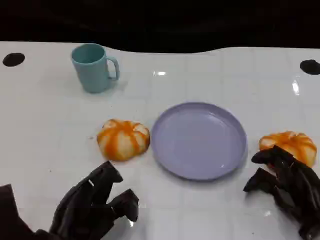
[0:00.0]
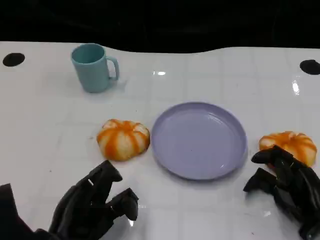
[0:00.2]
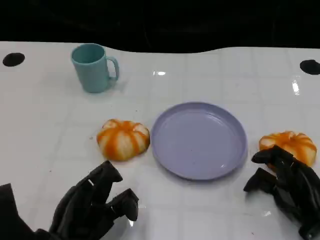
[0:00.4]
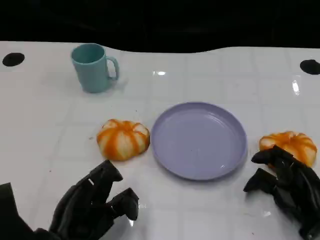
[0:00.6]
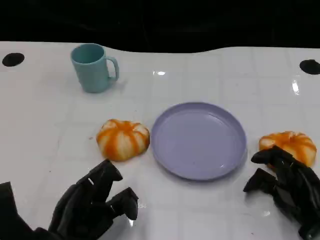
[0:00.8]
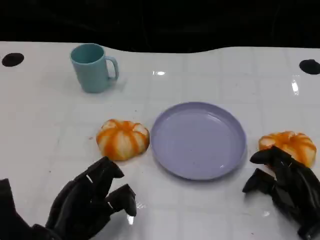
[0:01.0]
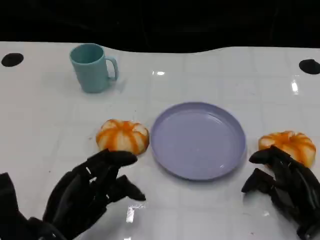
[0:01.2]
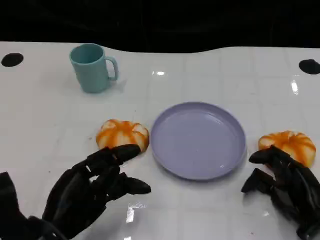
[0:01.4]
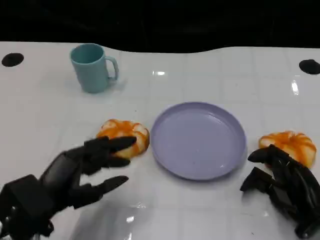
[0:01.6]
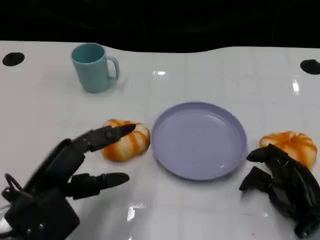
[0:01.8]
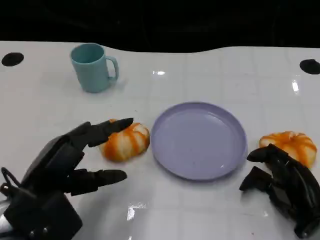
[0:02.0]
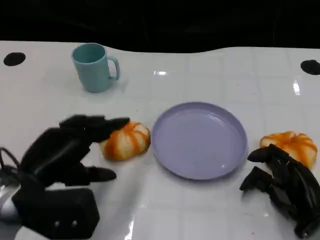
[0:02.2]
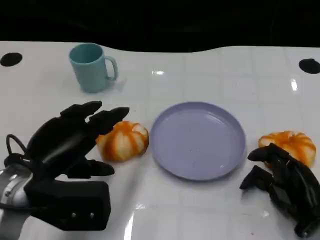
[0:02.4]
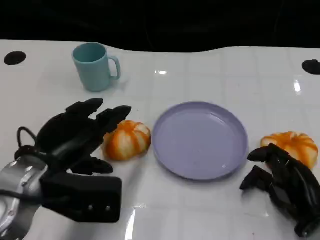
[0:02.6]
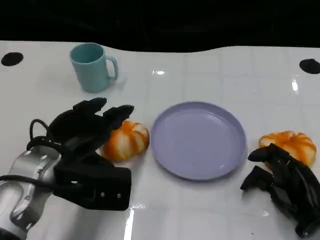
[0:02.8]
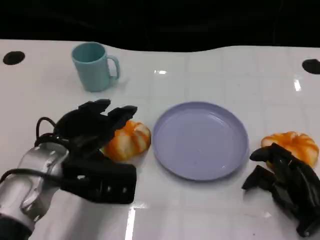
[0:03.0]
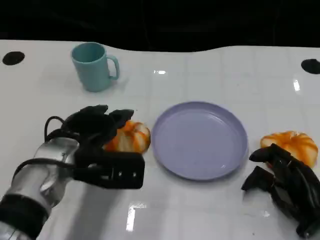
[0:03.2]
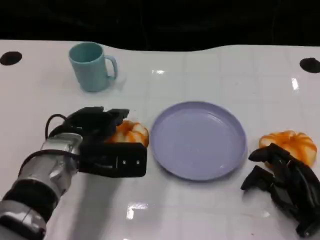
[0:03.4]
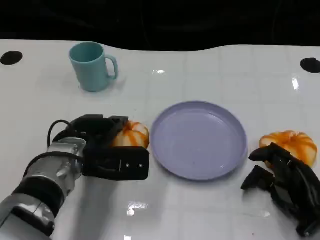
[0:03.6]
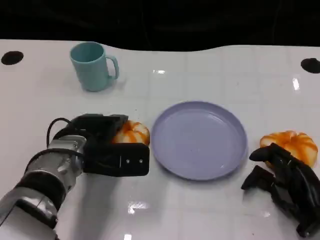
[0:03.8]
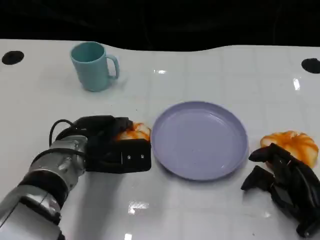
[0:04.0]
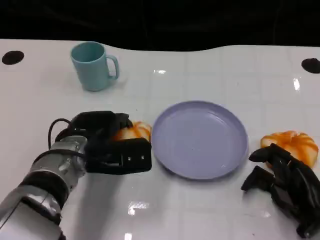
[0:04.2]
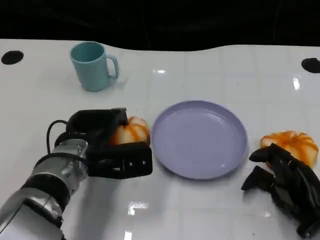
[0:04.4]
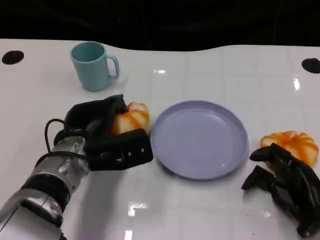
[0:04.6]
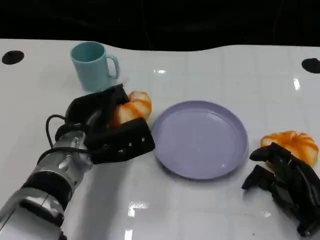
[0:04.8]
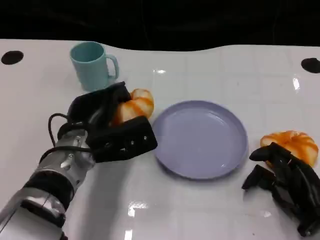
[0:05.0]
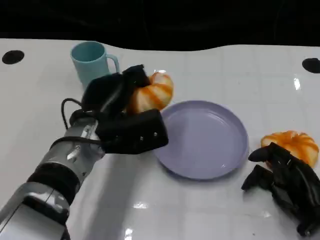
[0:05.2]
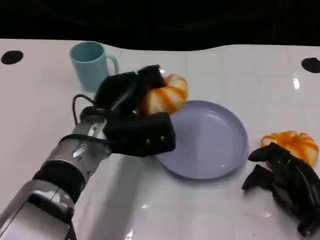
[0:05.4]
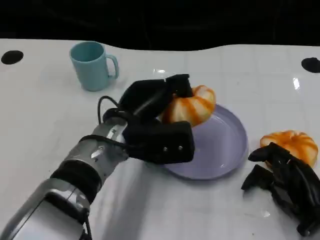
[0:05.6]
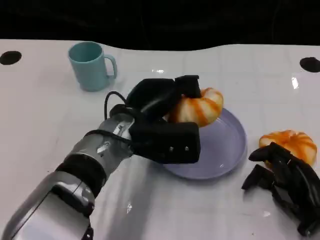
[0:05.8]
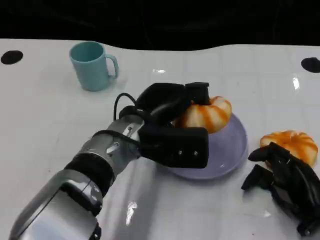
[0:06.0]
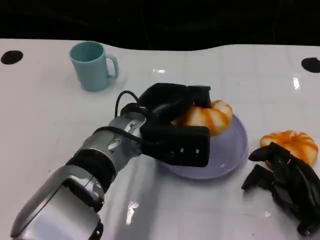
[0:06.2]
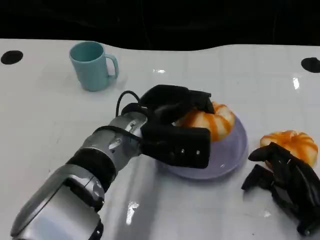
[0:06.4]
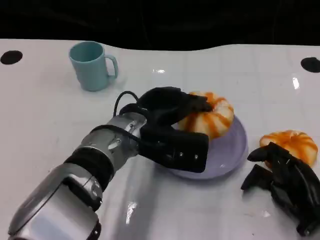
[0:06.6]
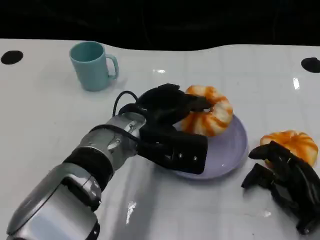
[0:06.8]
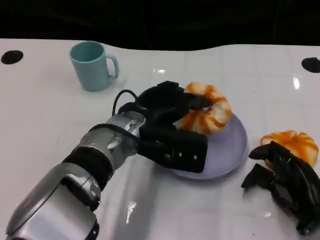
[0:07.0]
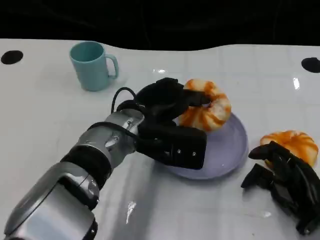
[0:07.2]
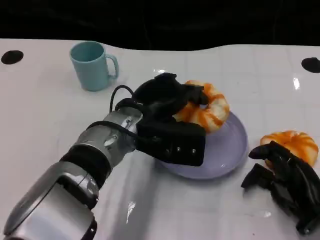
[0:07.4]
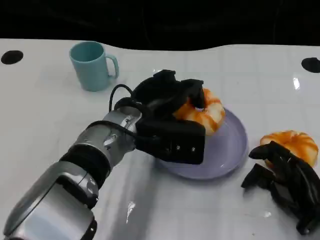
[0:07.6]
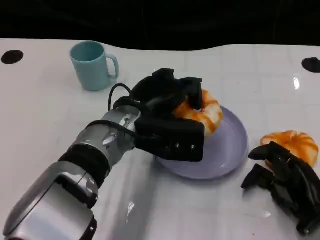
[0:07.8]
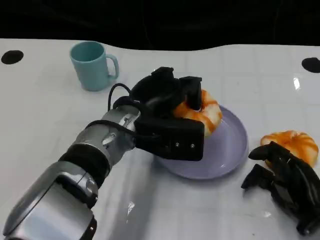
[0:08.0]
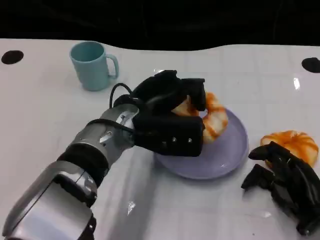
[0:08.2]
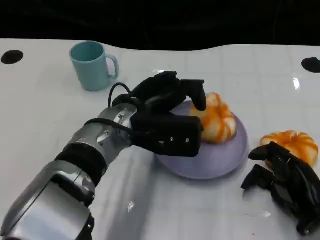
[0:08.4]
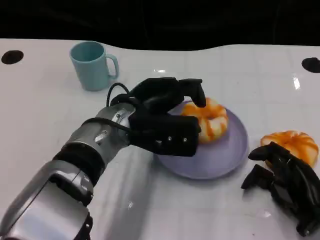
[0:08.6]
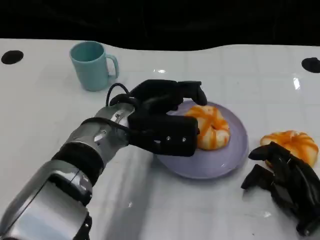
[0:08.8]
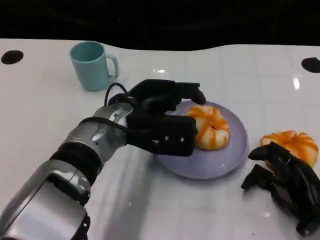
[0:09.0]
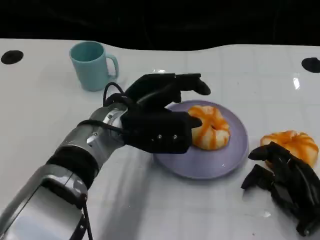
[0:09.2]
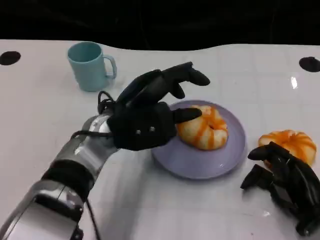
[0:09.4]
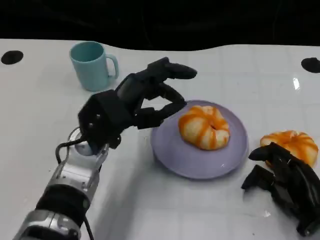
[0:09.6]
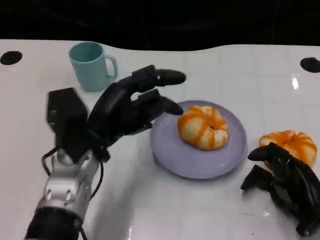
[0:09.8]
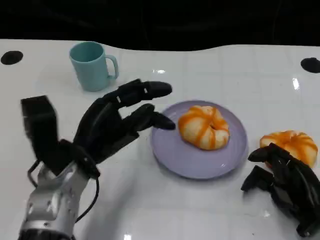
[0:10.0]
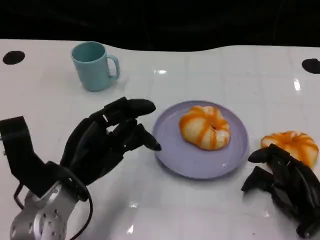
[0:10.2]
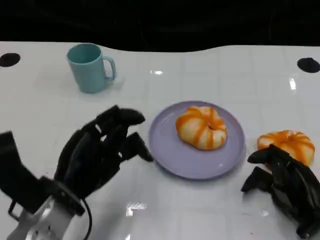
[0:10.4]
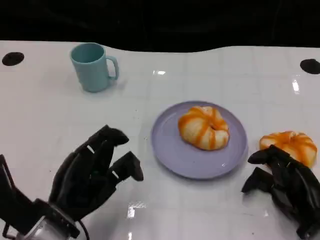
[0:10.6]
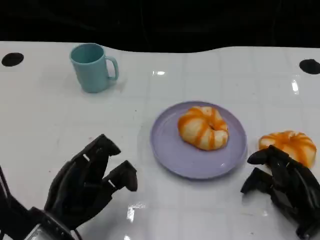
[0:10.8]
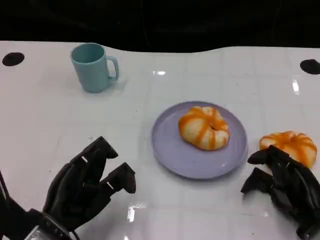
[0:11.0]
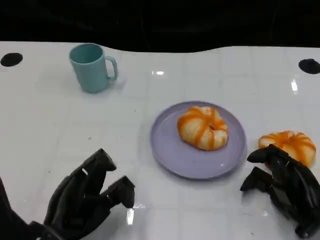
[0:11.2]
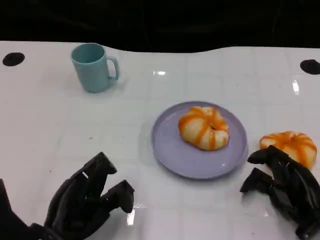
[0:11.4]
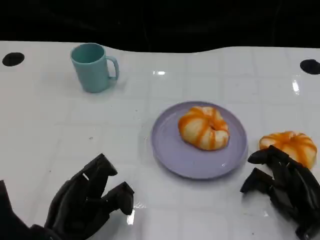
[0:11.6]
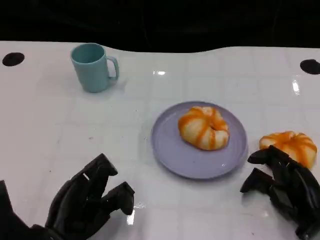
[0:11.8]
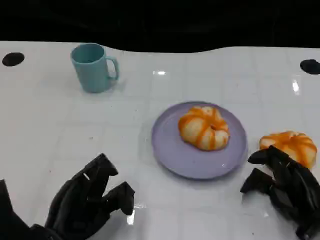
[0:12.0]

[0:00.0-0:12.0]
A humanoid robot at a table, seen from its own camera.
Task of the whole recording: Grasp the bread from the table and place it into the plate.
0:00.0 to 0:01.6: The left hand travels upward by about 5 cm.
0:01.6 to 0:03.0: The left hand travels forward by some 10 cm.
0:03.0 to 0:04.4: The left hand changes place by about 5 cm.
0:04.4 to 0:06.0: The left hand shifts some 10 cm to the right.
0:06.0 to 0:09.0: The hands stay close to where they were, moving slightly.
0:09.0 to 0:10.4: The left hand goes some 15 cm to the left, backward and downward.
0:10.4 to 0:12.0: The left hand ends up roughly 5 cm from where it was.

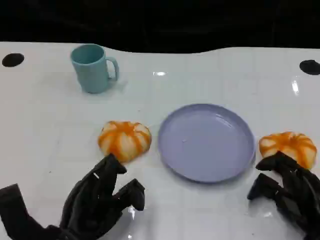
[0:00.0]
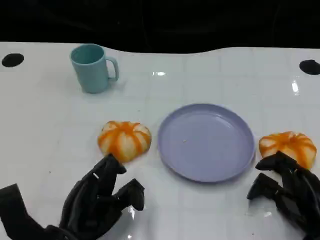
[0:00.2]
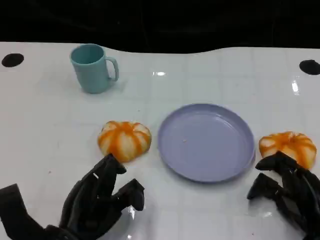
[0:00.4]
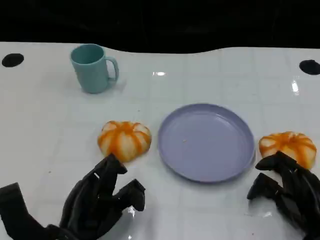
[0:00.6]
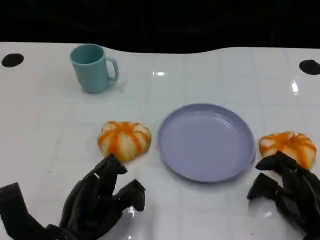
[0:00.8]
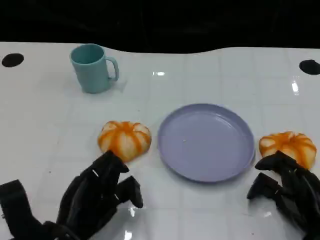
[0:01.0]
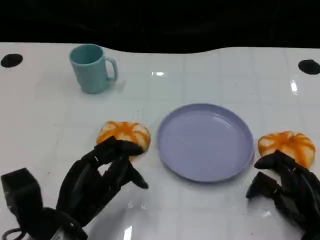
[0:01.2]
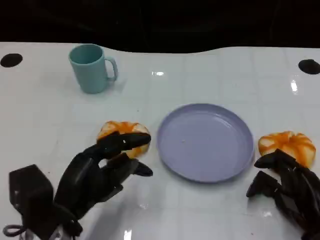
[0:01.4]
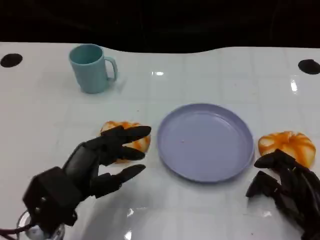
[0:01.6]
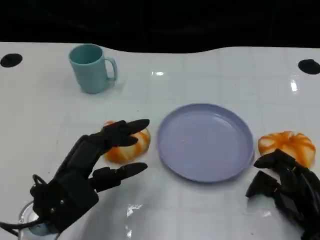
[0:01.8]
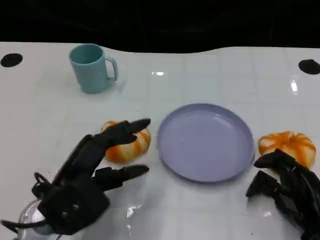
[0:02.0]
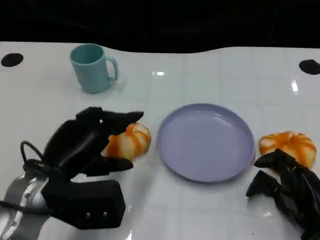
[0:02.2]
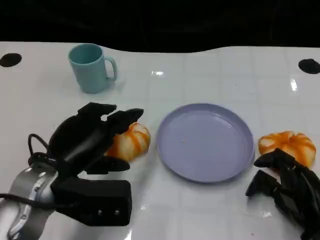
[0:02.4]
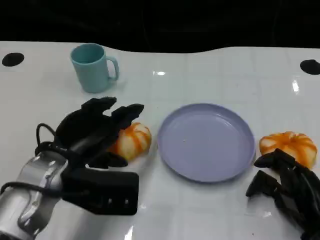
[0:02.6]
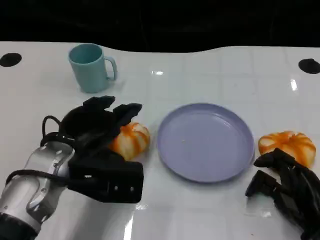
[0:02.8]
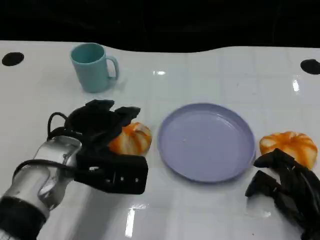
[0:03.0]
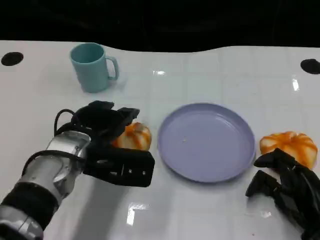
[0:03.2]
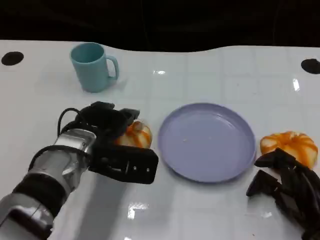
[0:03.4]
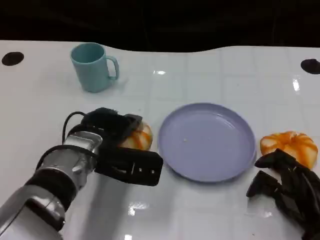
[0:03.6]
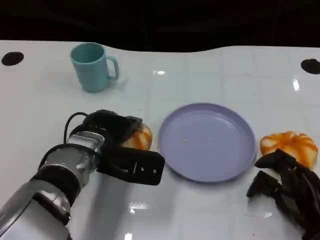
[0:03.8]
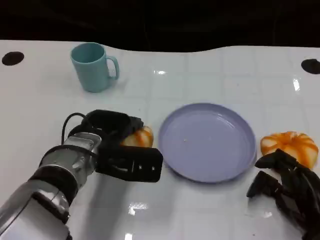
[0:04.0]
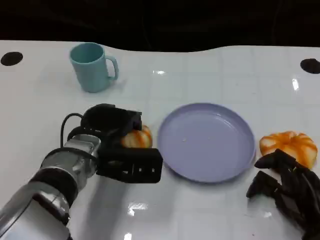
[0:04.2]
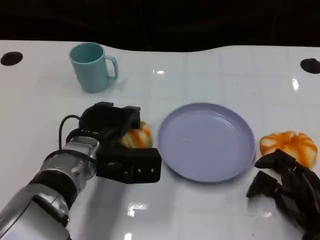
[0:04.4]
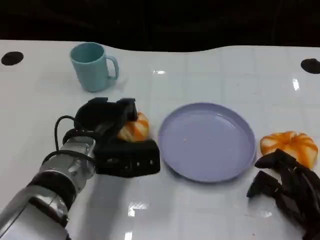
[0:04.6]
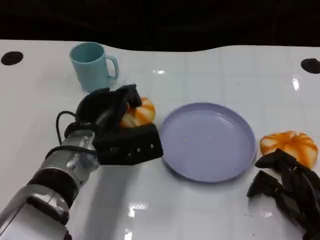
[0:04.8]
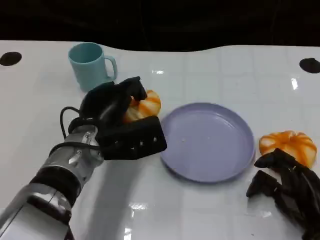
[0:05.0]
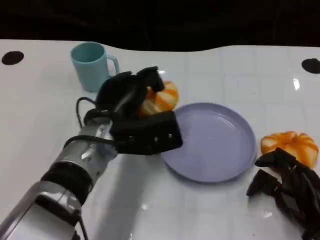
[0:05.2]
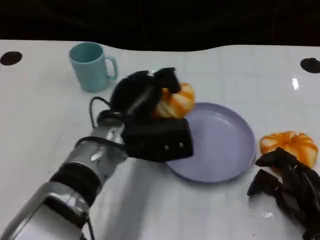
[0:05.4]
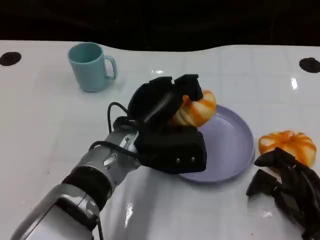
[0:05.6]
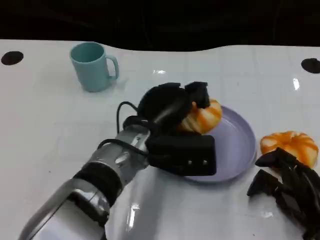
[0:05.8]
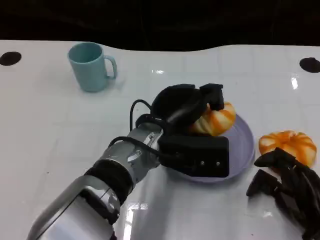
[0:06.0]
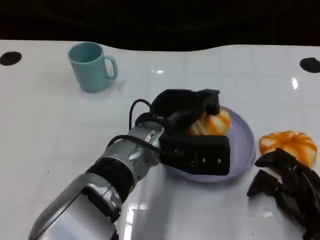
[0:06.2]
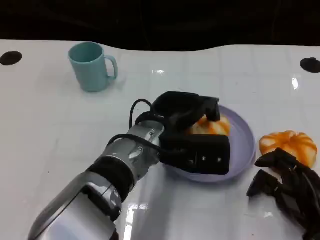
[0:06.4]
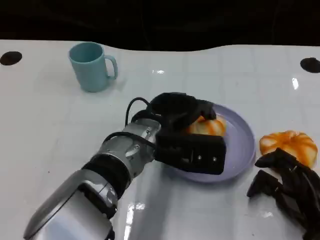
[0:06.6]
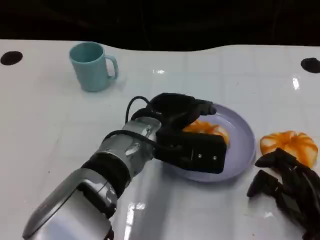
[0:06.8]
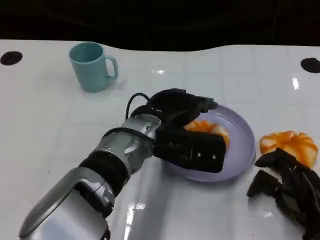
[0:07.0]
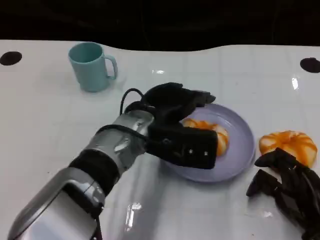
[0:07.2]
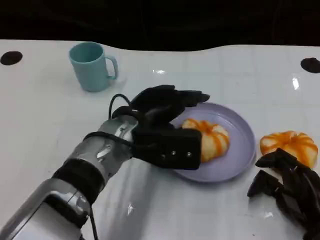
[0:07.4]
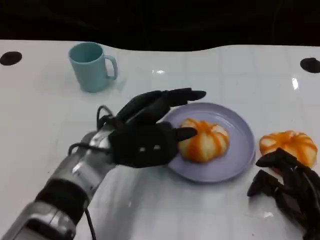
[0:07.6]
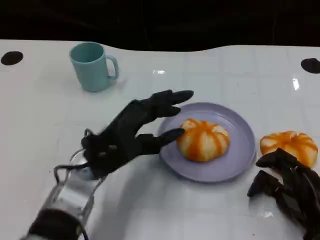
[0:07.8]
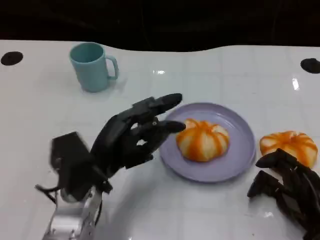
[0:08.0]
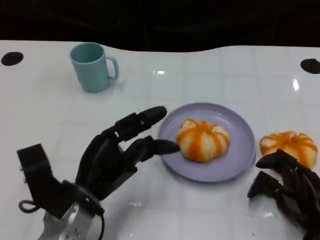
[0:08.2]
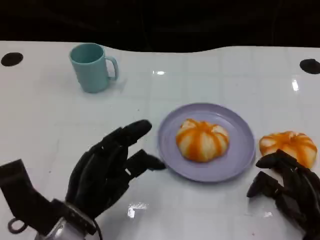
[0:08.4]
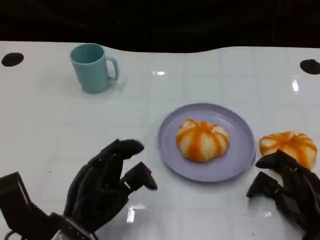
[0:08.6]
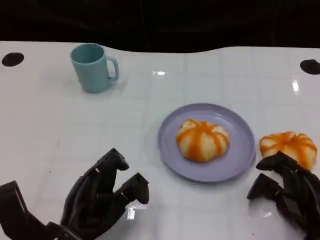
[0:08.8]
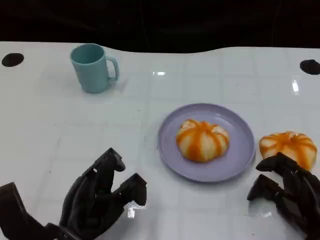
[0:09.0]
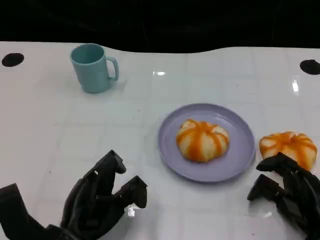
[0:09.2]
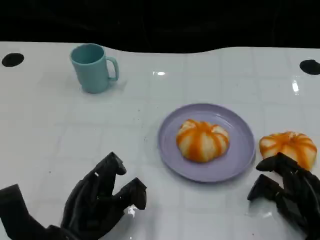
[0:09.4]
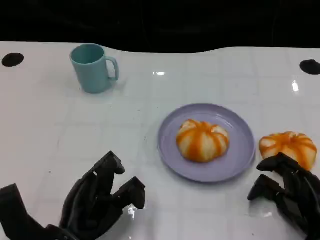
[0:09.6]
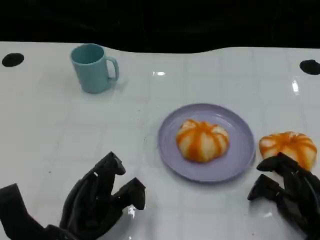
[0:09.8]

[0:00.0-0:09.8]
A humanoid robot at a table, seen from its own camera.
Task of the whole recording: Grasp the bread from the table and place it into the plate.
0:01.4 to 0:02.8: The left hand goes approximately 5 cm forward.
0:02.8 to 0:04.2: The left hand changes place by about 5 cm.
0:04.2 to 0:05.6: The left hand is displaced to the right by about 5 cm.
0:07.0 to 0:08.4: The left hand goes roughly 20 cm to the left, backward and downward.
0:08.4 to 0:09.8: The hands move only a little.
